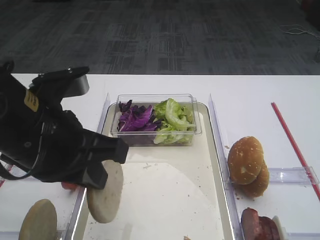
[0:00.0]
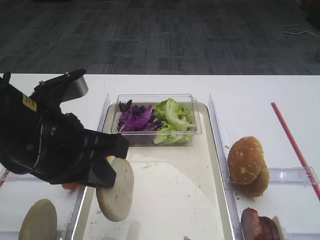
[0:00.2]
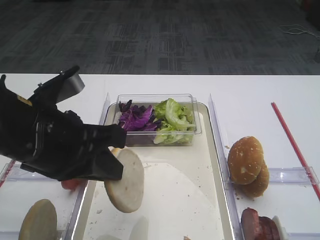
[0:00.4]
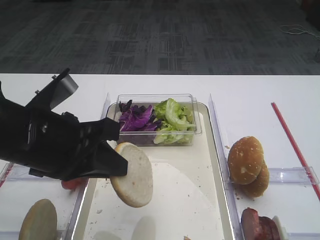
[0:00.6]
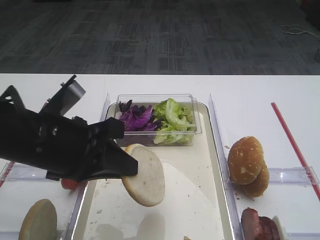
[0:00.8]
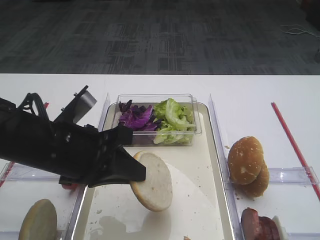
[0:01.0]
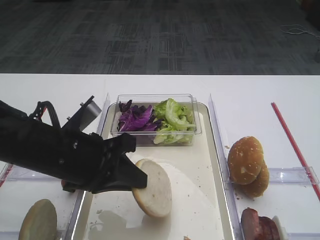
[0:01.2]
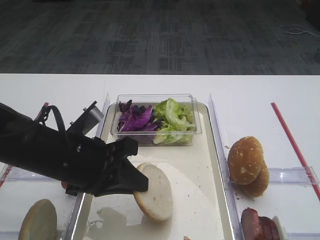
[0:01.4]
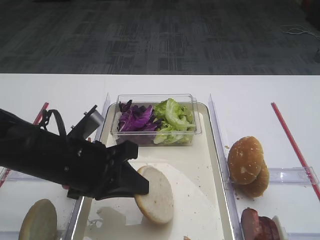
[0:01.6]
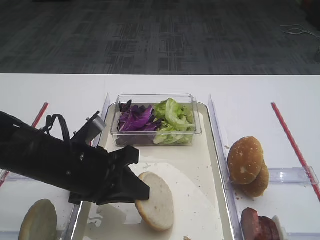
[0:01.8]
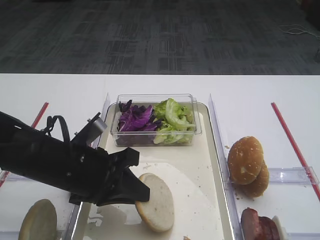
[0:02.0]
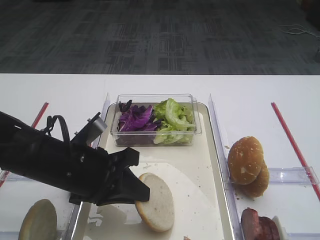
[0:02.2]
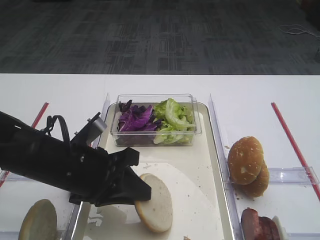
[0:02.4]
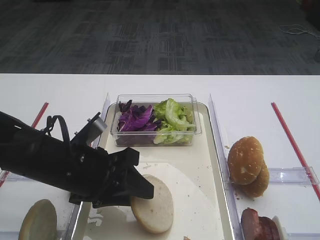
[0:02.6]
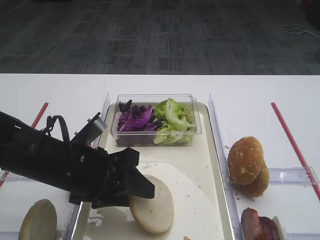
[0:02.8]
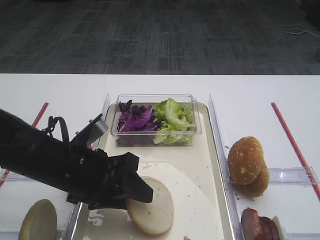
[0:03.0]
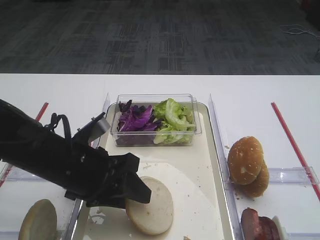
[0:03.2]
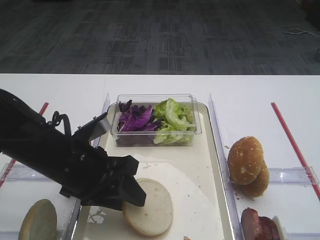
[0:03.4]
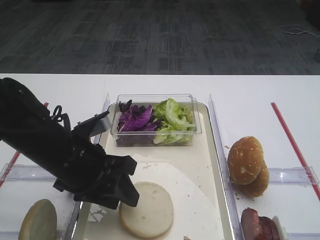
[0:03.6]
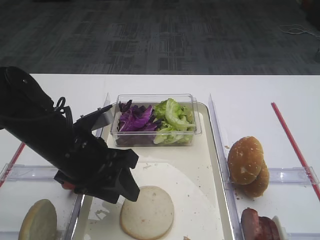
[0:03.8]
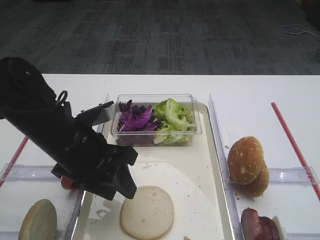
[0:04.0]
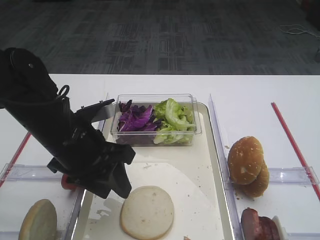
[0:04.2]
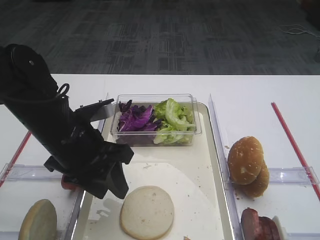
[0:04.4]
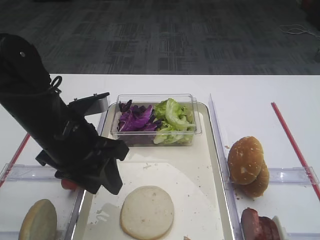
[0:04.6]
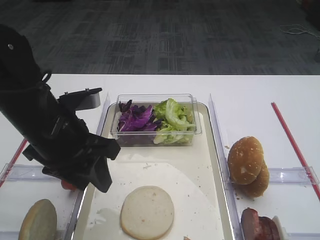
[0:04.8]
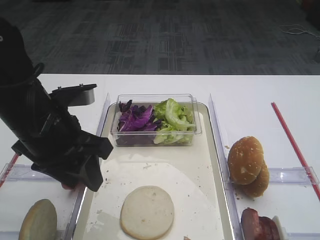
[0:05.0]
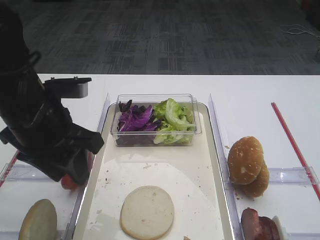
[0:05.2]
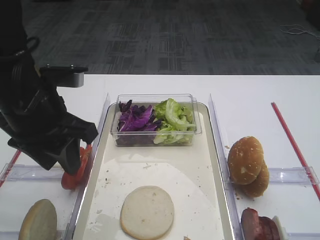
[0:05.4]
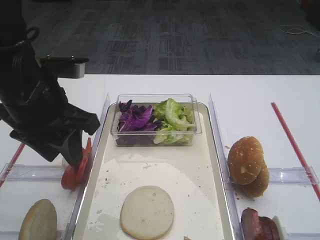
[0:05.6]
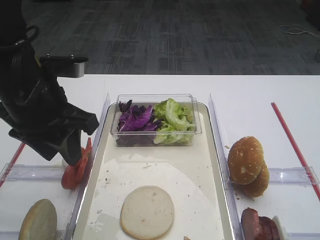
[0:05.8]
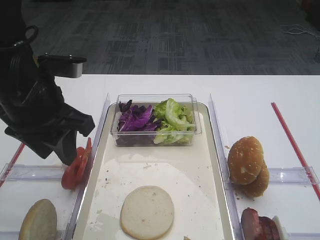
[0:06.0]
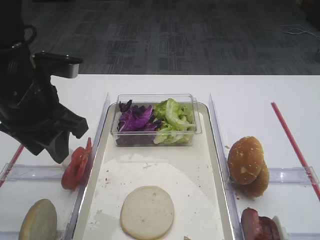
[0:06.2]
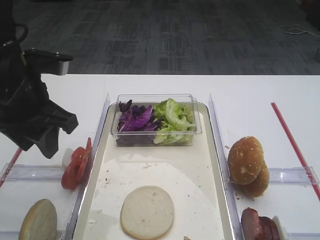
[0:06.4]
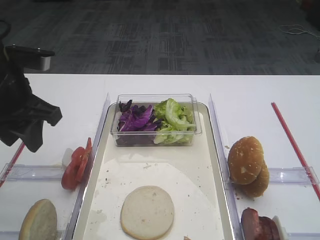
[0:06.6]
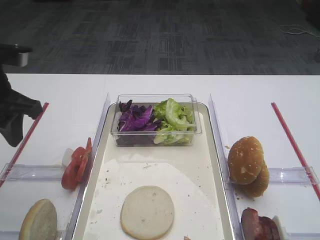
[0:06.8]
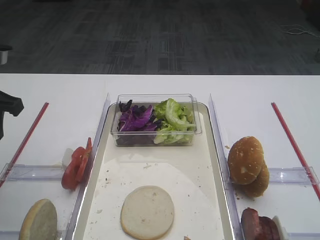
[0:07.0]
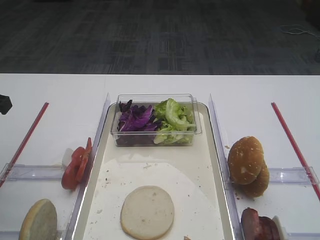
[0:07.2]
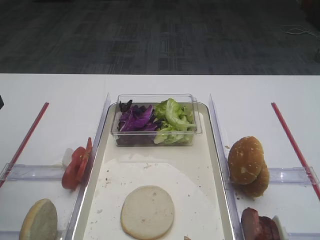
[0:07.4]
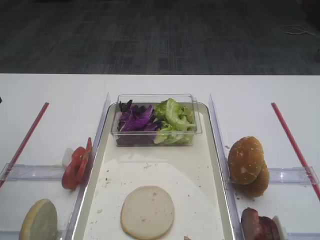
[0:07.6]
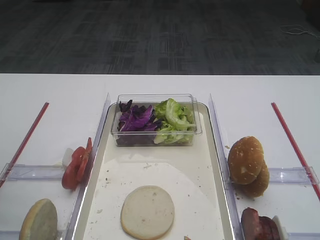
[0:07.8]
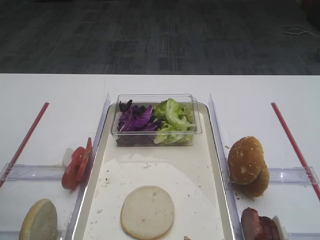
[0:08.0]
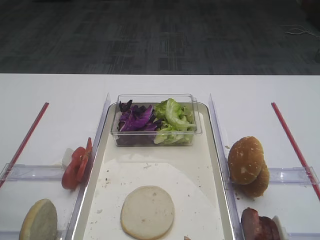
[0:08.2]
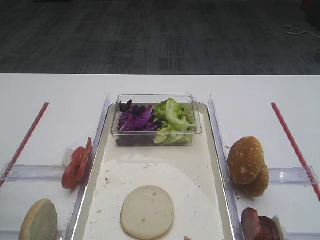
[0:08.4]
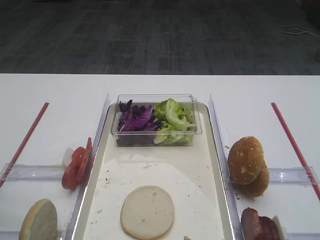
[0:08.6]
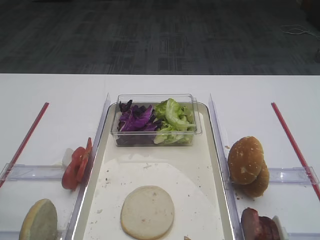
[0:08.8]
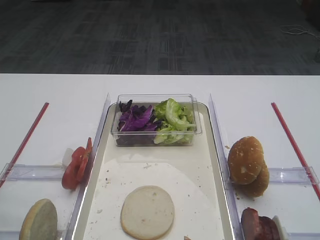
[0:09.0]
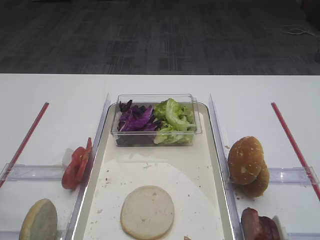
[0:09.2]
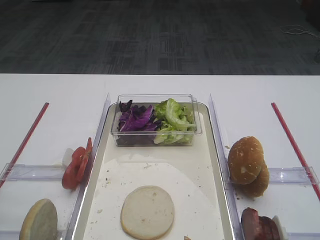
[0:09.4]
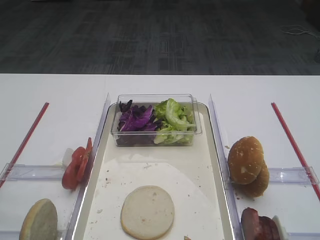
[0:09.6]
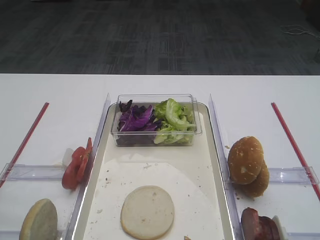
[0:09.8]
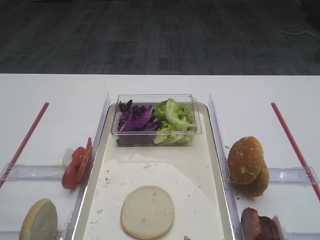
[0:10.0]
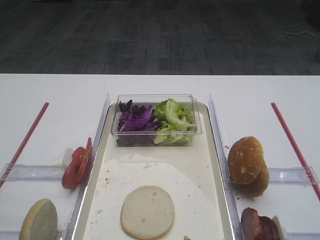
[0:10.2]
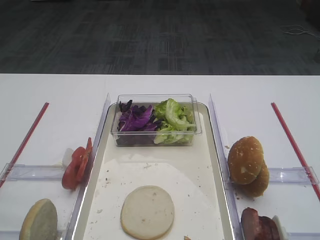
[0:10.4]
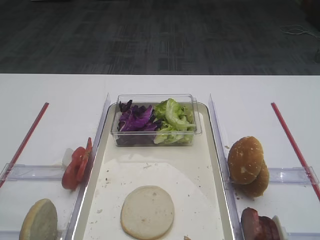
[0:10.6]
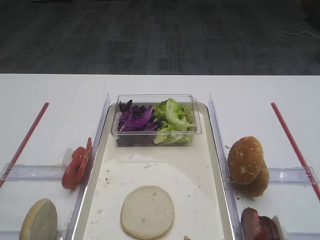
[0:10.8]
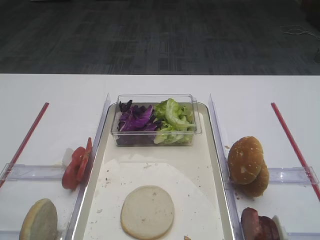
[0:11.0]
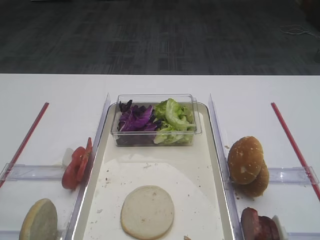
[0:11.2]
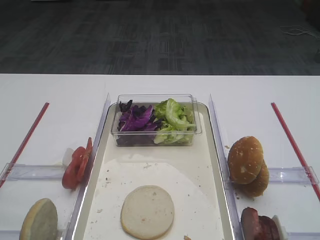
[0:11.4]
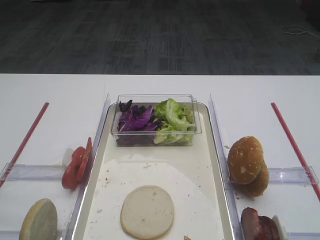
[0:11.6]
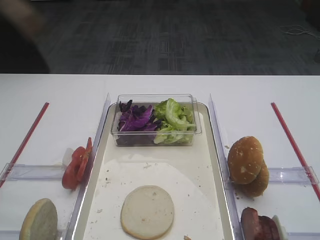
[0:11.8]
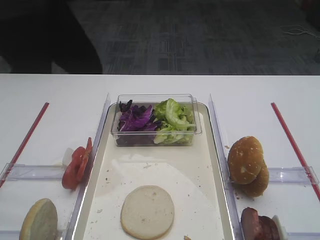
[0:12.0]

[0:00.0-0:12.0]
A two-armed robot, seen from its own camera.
Step, 0:00.0 to 0:04.8: Place the bread slice on the tray with the left gripper.
0:00.0 to 0:01.6: The left gripper is displaced downward by roughly 10 cm.
0:01.6 to 0:03.0: The left gripper opens up.
0:04.4 to 0:06.0: The left gripper travels upward by about 10 cm.
0:06.0 to 0:07.6: The left gripper moves to the left, some 15 cm.
0:10.4 to 0:12.0: The grippers make only small movements.

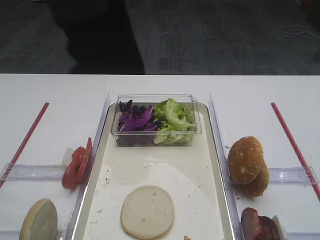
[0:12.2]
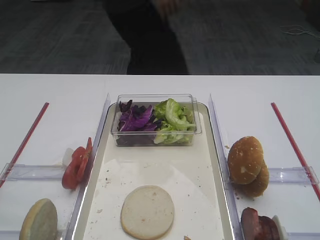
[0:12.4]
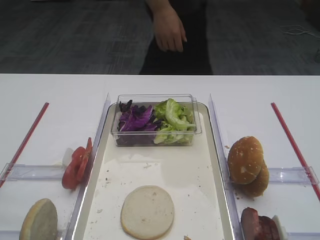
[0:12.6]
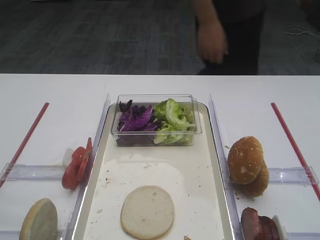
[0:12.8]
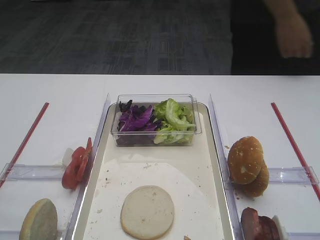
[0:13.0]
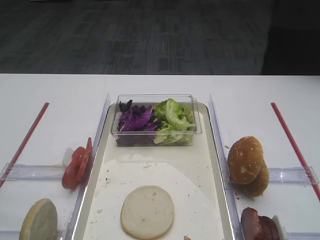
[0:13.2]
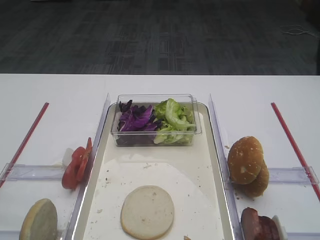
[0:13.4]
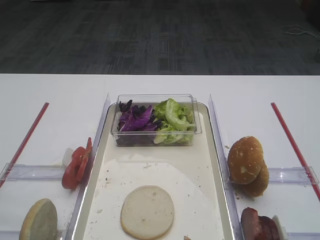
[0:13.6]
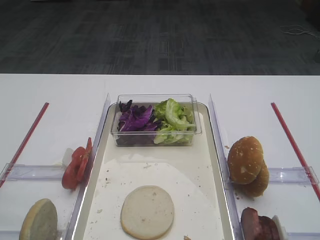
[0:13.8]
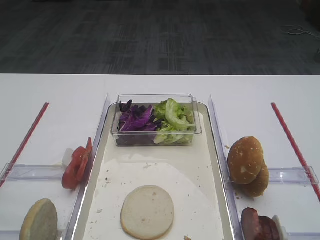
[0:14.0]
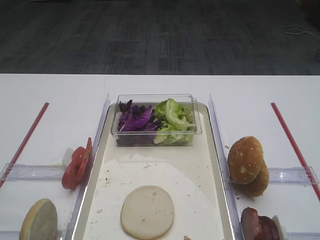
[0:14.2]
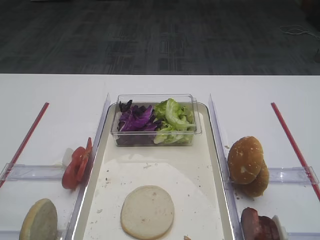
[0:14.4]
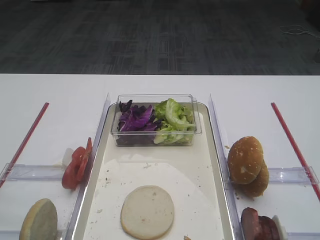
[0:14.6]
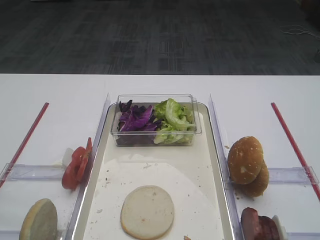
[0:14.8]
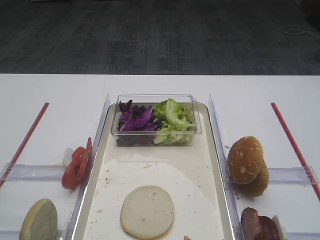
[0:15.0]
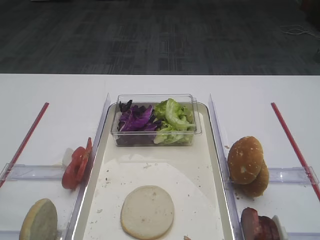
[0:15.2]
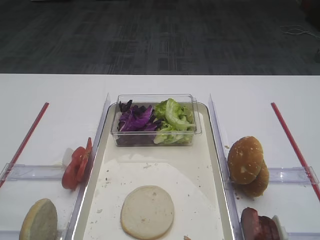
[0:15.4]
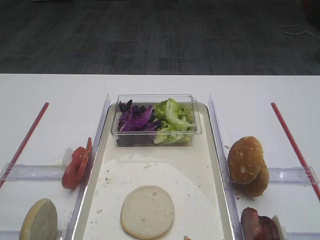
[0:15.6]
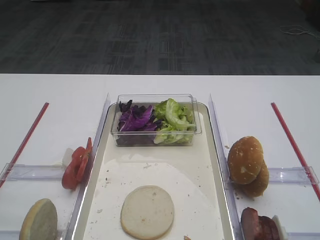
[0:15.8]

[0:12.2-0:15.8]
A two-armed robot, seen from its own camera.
0:12.2 to 0:15.8: Neither gripper changes place.

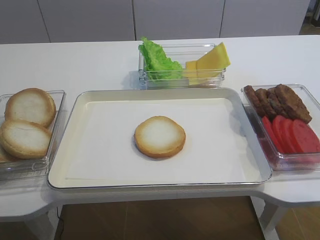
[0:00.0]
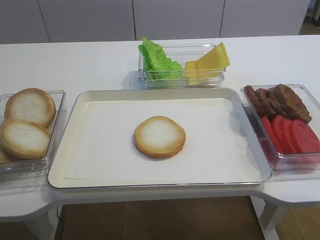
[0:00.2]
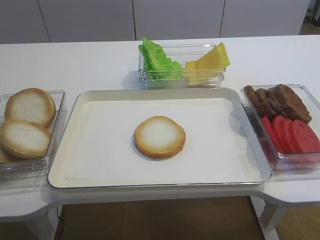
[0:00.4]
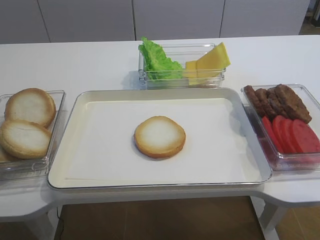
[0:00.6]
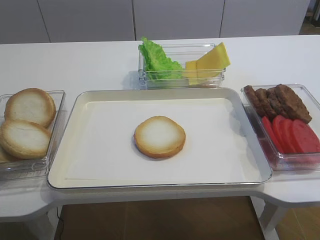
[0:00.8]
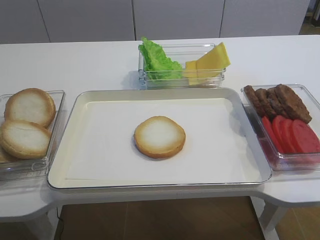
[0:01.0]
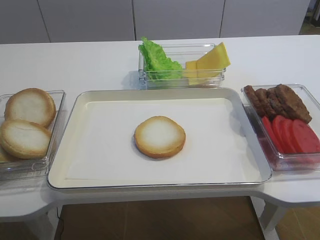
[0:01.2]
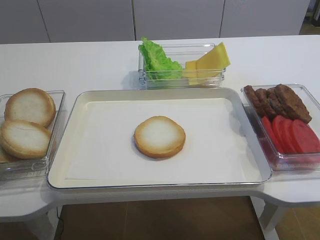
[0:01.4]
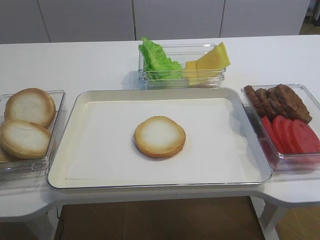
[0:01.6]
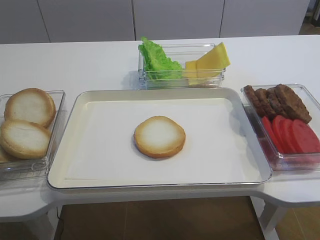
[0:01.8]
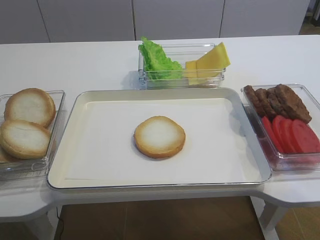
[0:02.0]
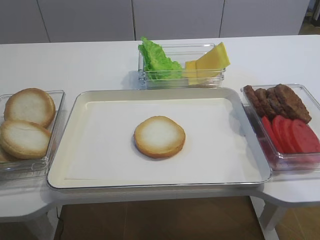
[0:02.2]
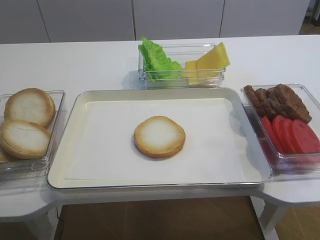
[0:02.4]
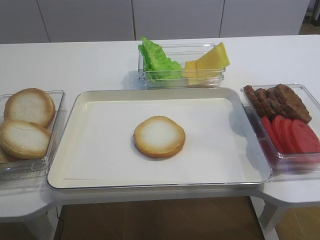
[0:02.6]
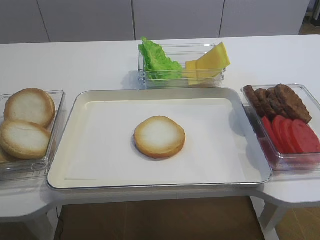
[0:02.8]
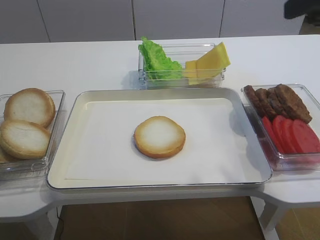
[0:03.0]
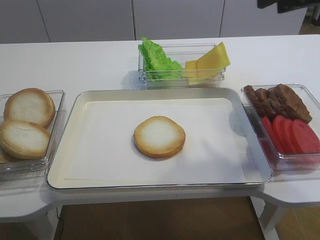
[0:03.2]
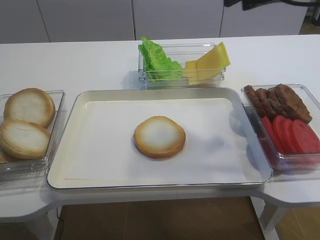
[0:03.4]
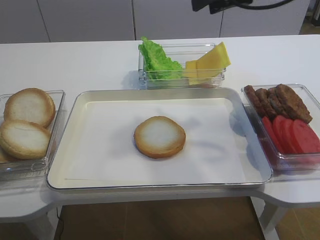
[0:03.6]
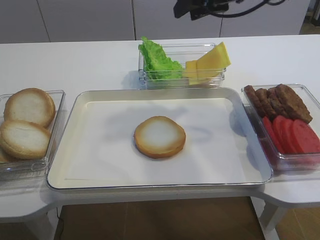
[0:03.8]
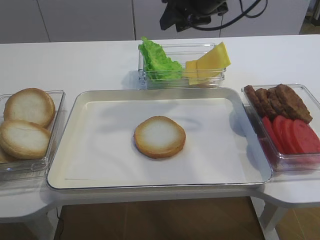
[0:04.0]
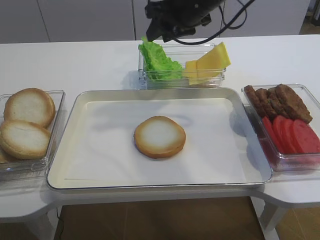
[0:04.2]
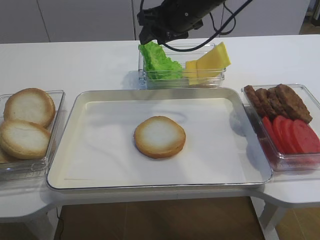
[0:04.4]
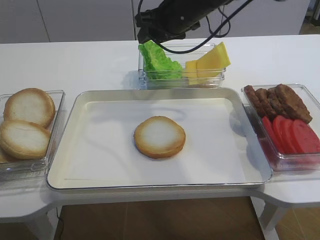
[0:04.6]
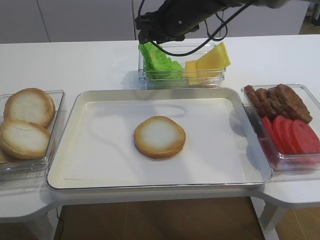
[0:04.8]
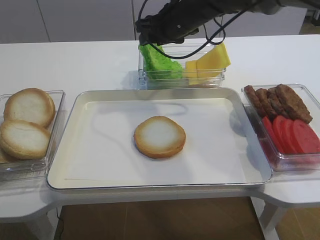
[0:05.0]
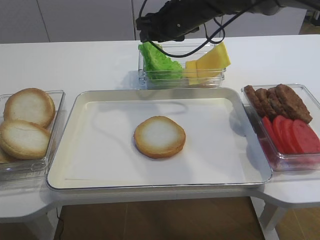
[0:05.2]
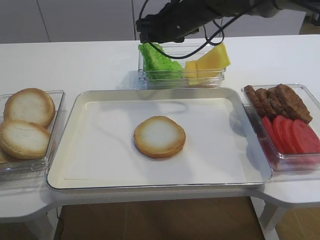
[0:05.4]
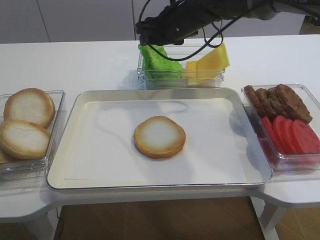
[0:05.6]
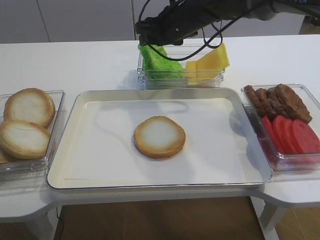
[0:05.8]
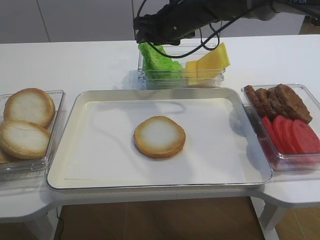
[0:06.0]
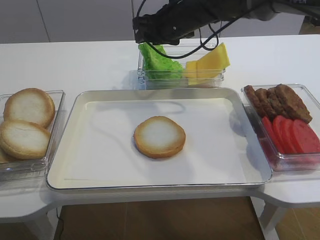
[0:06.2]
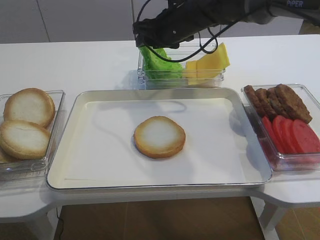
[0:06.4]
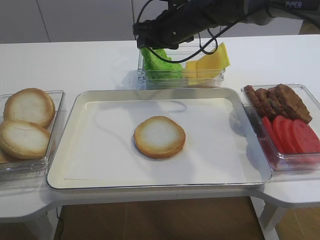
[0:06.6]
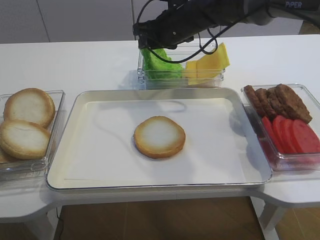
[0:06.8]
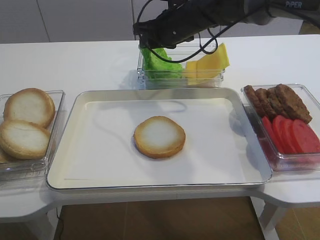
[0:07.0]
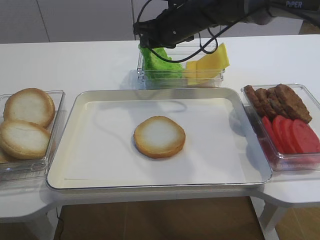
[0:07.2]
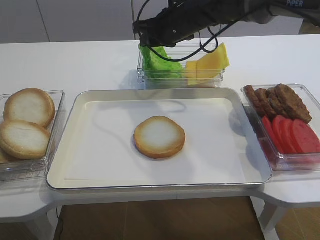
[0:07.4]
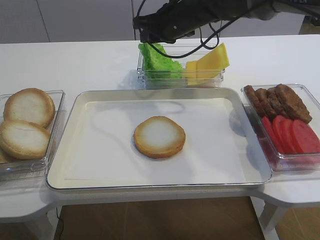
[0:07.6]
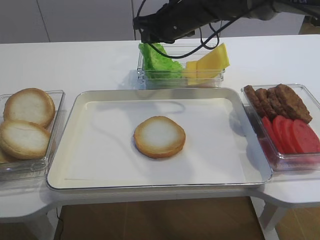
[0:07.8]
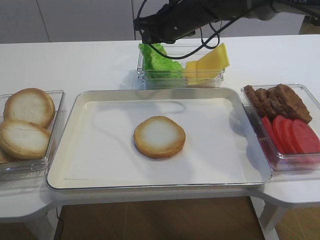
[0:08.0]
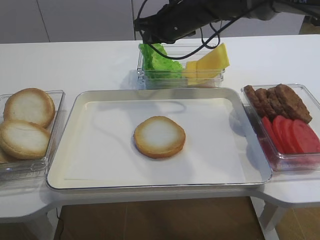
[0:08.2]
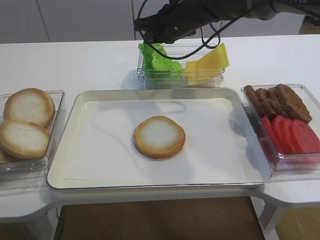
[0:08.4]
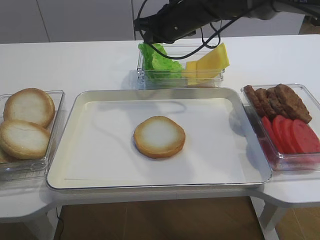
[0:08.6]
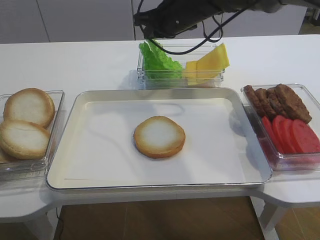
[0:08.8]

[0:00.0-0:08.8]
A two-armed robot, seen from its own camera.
0:01.4 to 0:03.0: The right gripper goes about 25 cm forward and upward.
0:03.0 to 0:04.4: The right gripper is displaced forward, to the left and downward by roughly 30 cm.
0:04.4 to 0:05.8: The grippers move only a little.
0:05.8 to 0:07.4: The right gripper closes.
0:07.4 to 0:08.8: The grippers make only small movements.
